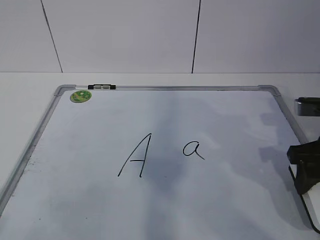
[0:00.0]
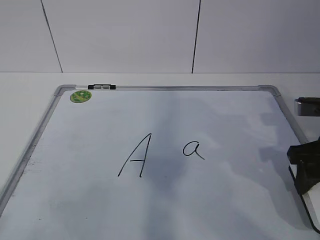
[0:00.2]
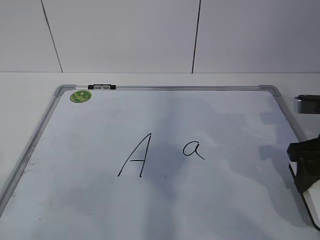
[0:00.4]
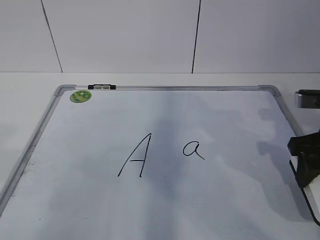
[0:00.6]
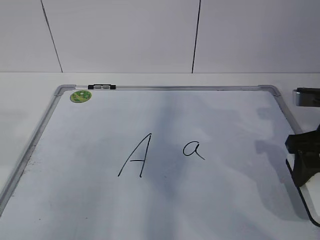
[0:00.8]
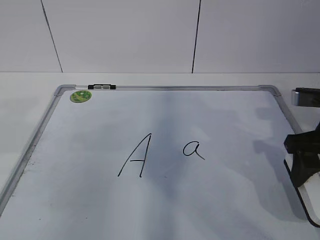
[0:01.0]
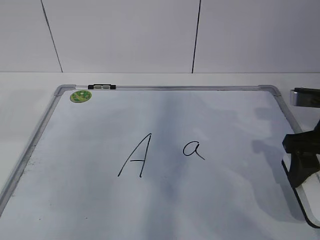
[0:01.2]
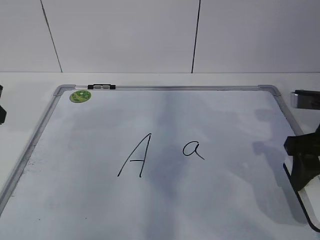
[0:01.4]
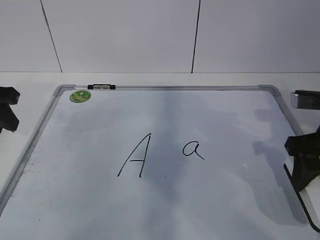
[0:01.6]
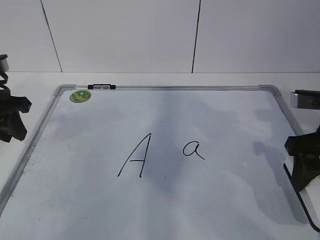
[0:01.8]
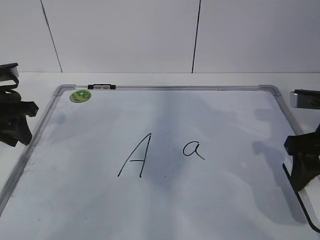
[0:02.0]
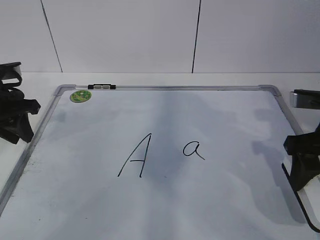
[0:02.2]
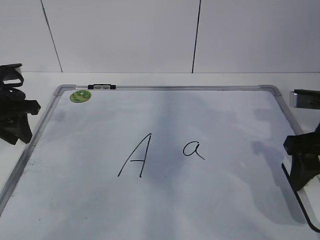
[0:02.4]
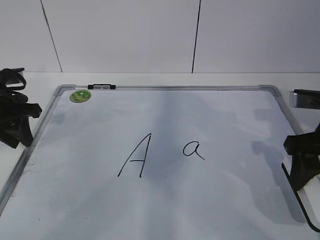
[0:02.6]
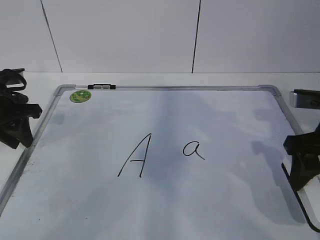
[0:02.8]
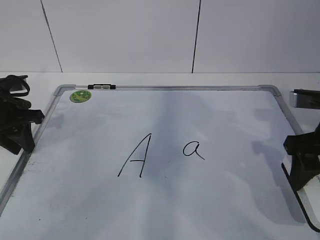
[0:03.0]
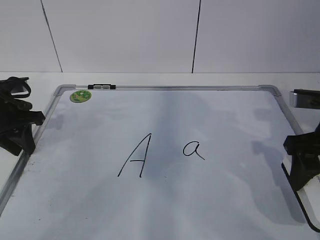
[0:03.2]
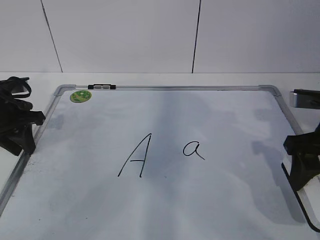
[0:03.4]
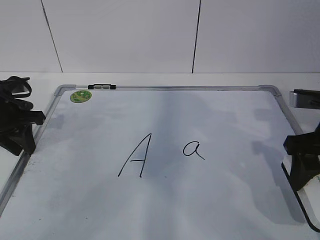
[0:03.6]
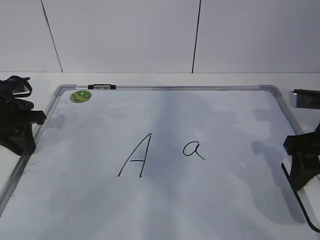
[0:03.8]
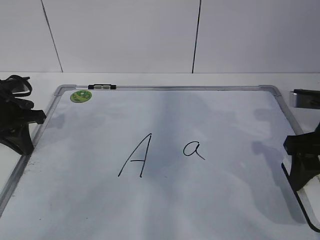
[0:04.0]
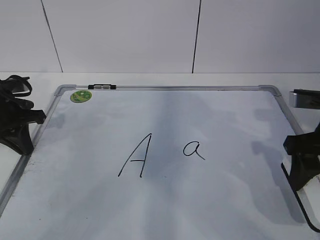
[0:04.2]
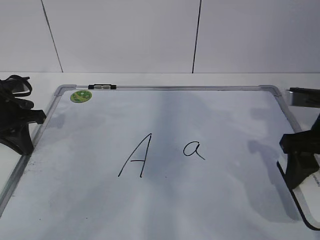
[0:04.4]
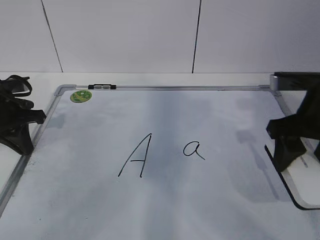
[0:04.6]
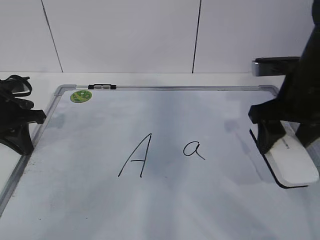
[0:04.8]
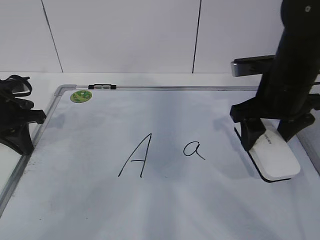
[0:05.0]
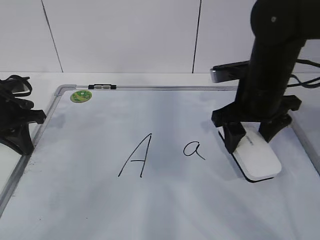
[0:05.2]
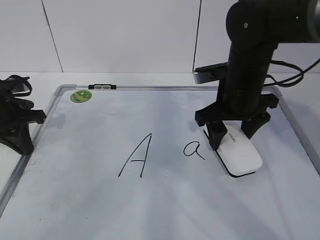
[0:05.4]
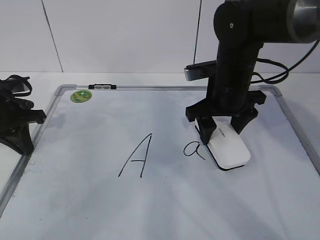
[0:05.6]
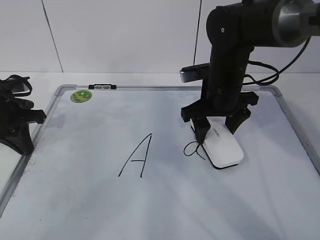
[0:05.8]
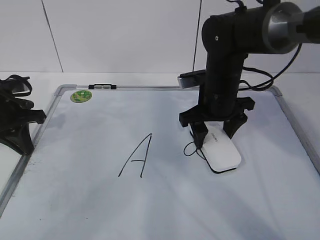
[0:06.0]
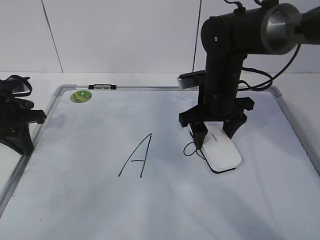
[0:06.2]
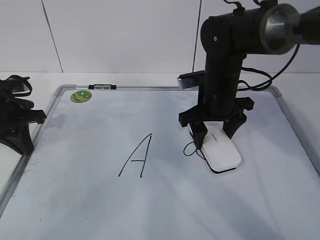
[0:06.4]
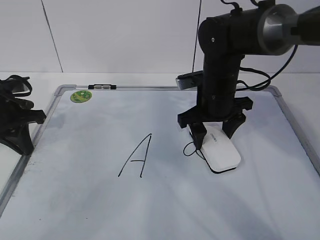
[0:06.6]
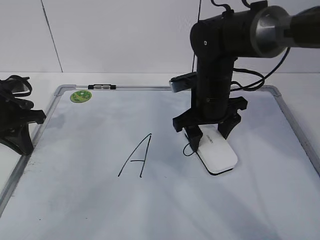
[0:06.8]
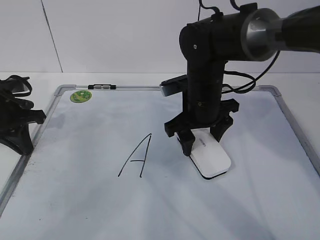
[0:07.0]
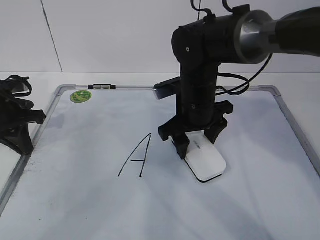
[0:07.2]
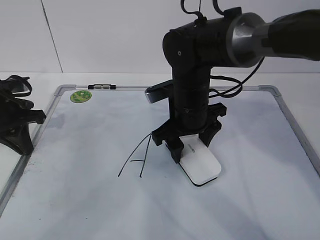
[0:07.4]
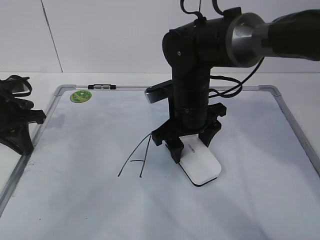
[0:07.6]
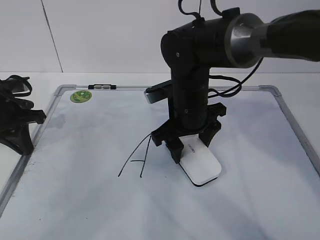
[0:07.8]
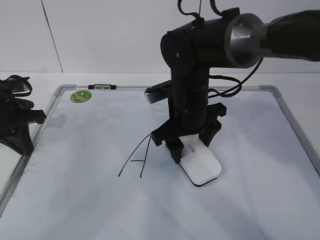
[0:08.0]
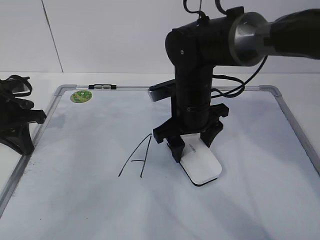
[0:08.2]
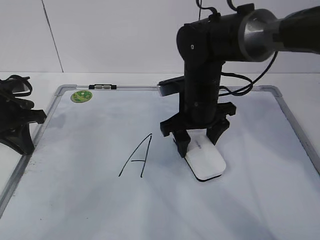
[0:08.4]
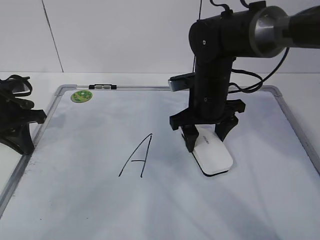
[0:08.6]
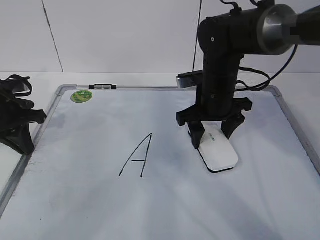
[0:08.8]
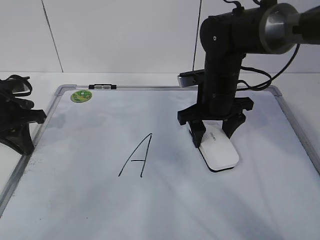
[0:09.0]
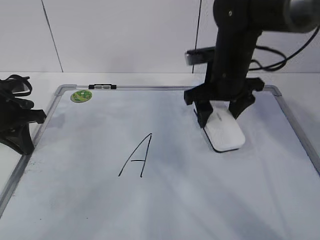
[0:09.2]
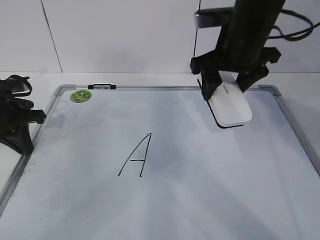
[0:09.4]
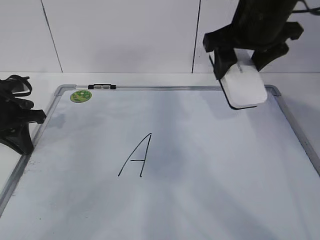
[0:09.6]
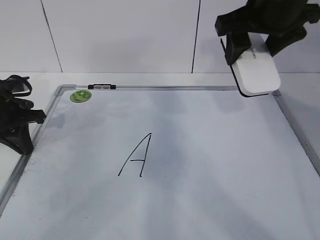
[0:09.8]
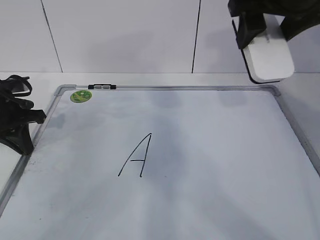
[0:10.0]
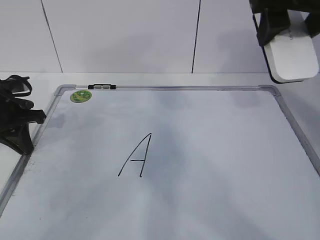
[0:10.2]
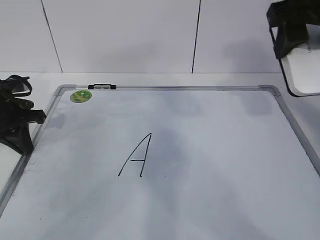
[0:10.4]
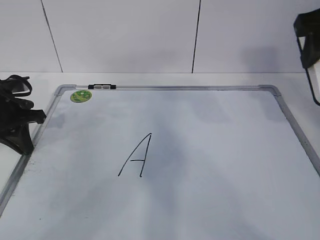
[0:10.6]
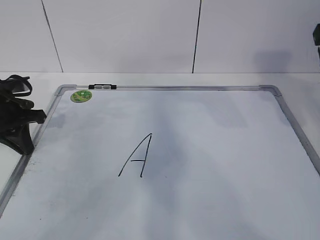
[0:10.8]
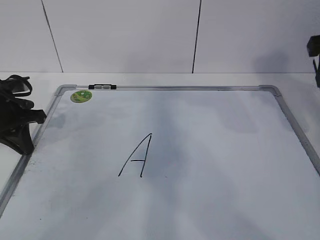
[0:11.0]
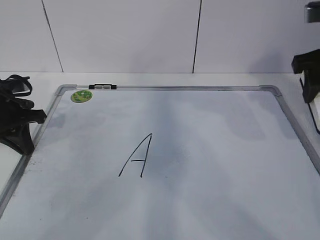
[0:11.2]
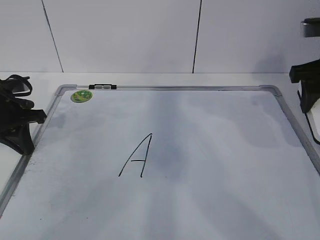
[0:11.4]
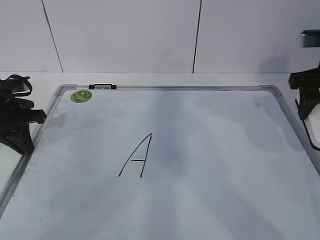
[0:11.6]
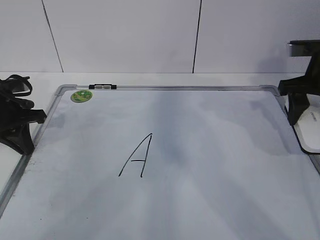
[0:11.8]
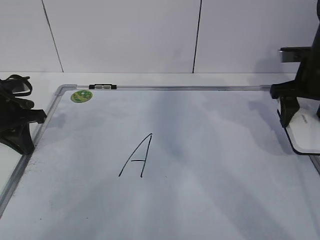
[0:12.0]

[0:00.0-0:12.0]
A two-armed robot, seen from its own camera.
Task of the whole recording: pick up the eraser on the blackboard and erase the letter "a".
Step, 0:01.0 to 0:04.8: Erase the letter a with your right hand.
Step, 0:05.0 to 0:09.0: Put down the eraser with your right hand.
0:00.0 to 0:01.6: The left gripper goes roughly 30 cm forward.
0:01.6 to 0:03.0: The left gripper travels downward and forward by roughly 10 cm.
0:03.0 to 0:04.4: The left gripper closes.
0:04.4 to 0:06.0: The right gripper goes approximately 20 cm to the left and forward.
0:06.0 to 0:07.6: The right gripper shifts some 5 cm to the left.
0:07.6 to 0:09.0: The right gripper goes some 5 cm to the right.
0:09.0 to 0:10.4: The right gripper moves upward, backward and to the right, approximately 25 cm.
0:10.4 to 0:12.0: The right gripper moves downward, forward and to the right, some 20 cm.

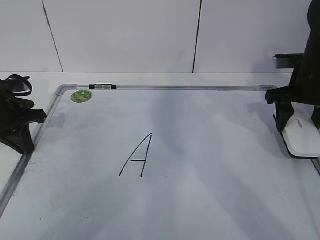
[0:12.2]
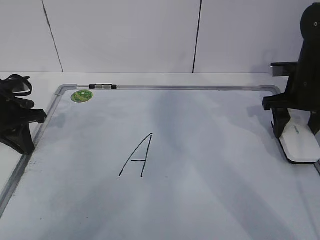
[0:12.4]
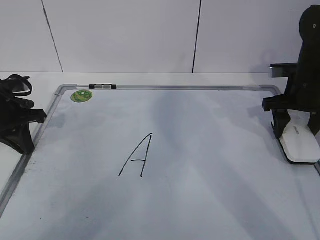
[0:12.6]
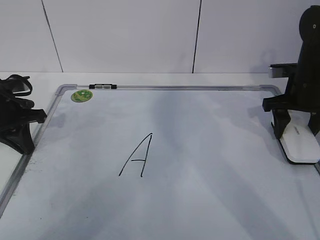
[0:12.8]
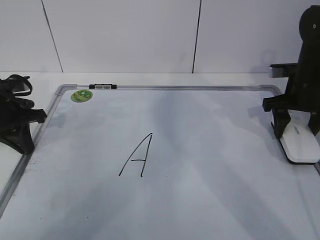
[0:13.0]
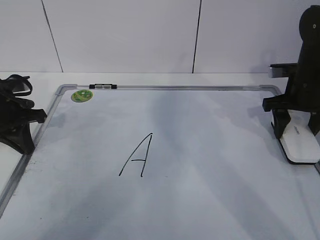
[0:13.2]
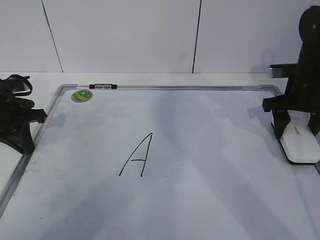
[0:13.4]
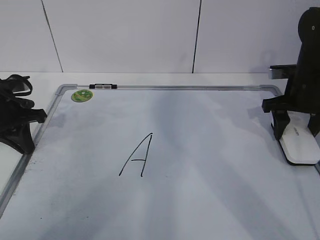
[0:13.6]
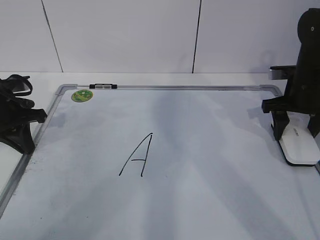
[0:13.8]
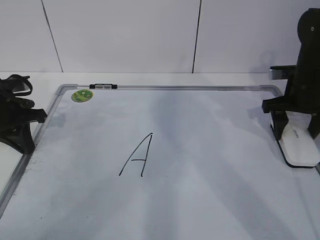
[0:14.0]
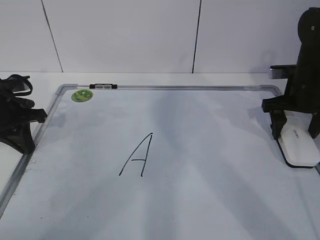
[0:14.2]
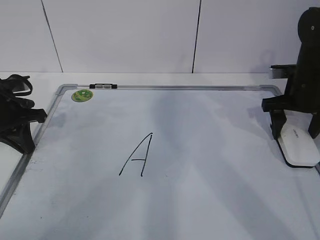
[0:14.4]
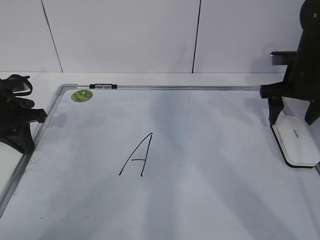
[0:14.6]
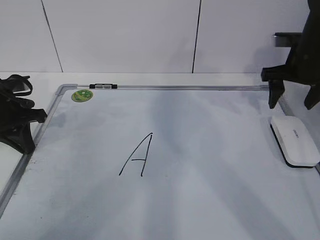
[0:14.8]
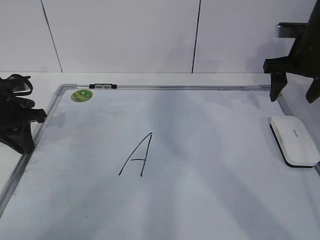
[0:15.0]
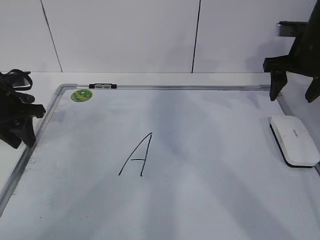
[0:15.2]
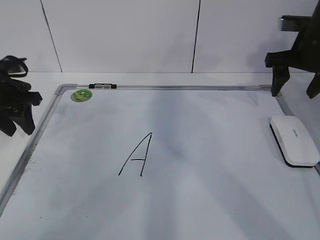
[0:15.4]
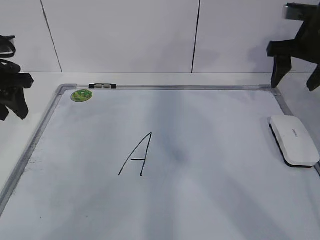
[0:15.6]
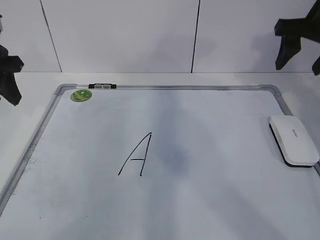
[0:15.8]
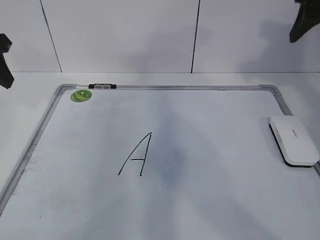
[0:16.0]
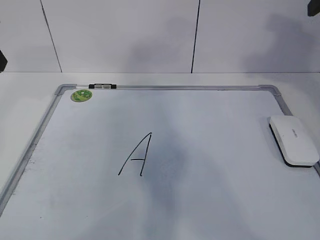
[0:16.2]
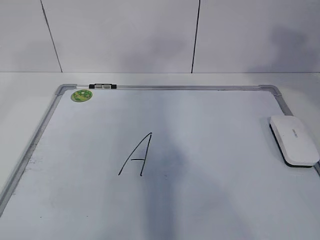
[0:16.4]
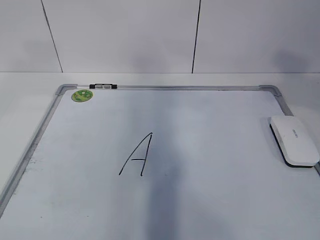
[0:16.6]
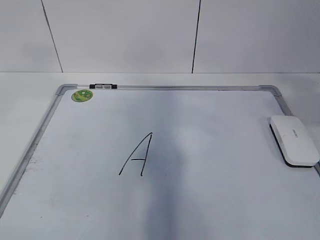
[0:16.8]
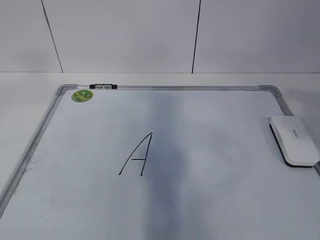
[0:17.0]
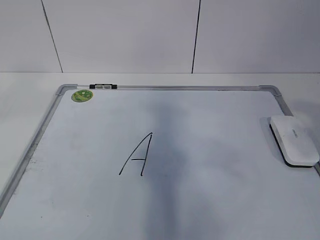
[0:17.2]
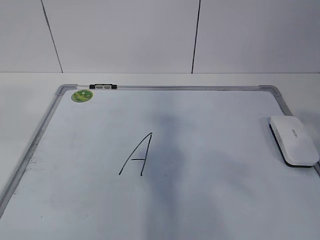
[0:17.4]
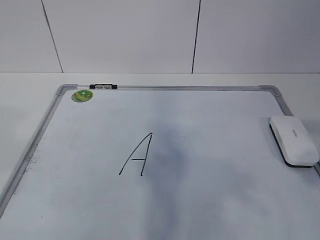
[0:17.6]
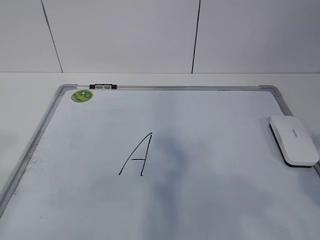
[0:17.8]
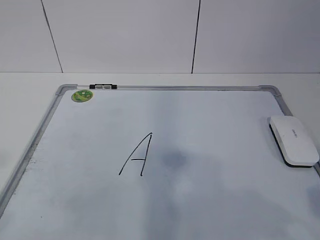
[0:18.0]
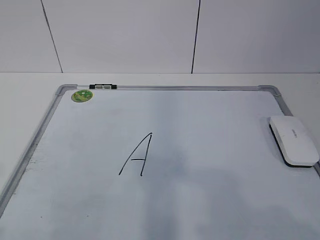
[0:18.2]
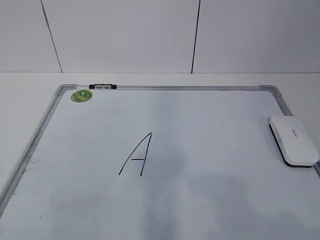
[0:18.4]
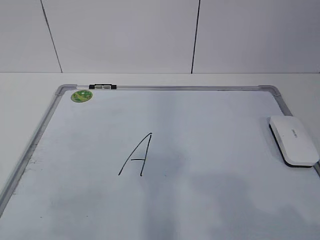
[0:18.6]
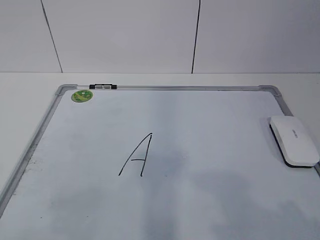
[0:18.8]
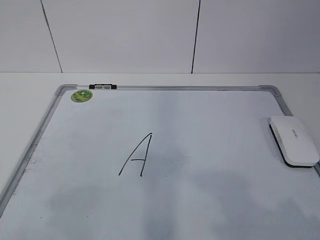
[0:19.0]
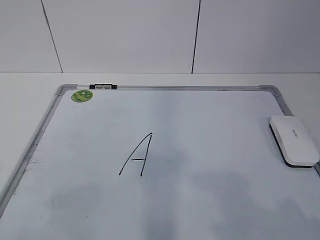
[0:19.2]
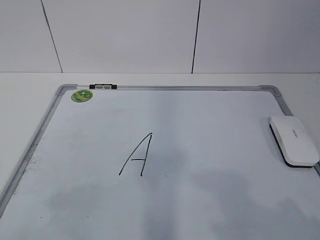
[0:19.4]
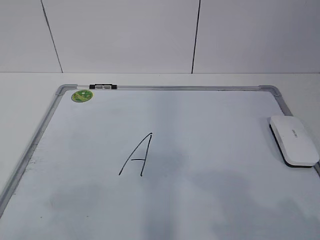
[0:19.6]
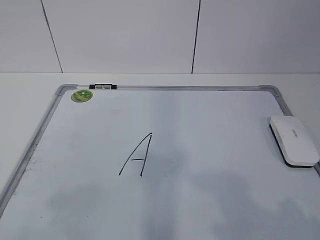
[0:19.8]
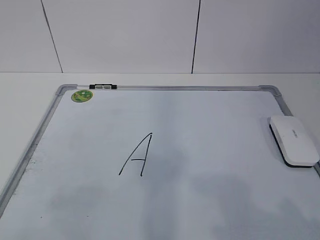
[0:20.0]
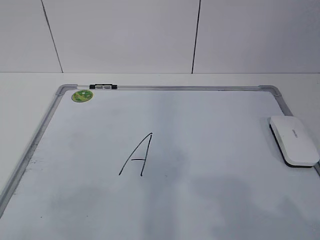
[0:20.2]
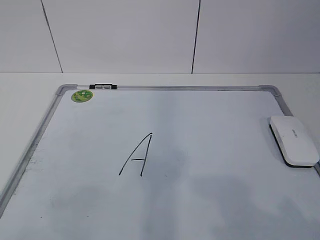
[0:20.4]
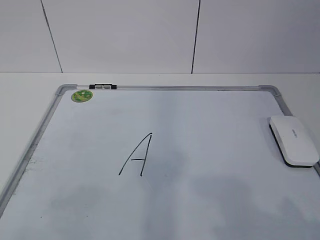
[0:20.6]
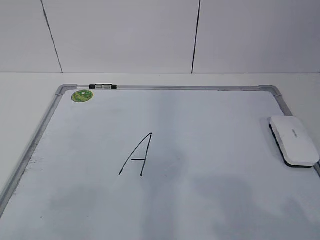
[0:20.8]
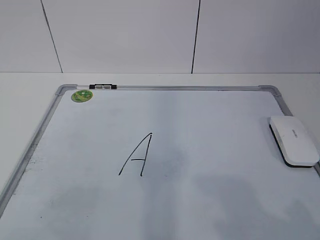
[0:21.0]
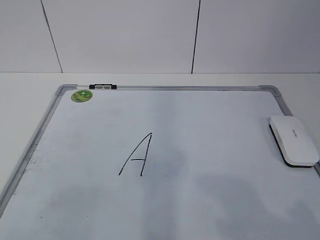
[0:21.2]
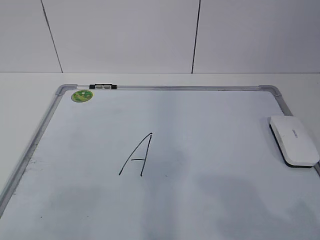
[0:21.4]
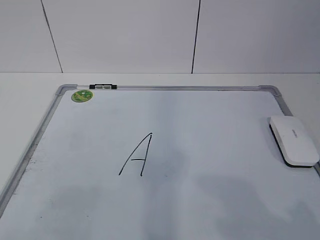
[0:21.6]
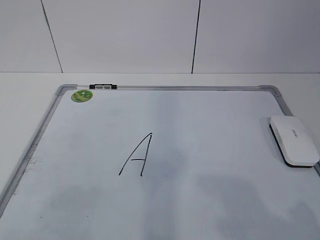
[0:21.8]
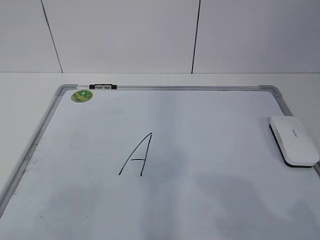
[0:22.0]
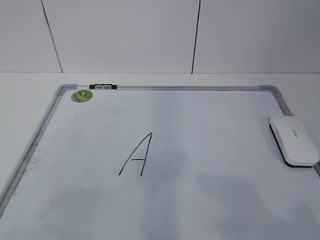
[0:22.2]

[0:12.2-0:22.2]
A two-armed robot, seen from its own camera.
Task of the whole recording: pick up the eraser on the blackboard and erase the letter "a".
0:12.2 to 0:13.6: The grippers move only a little.
0:13.6 to 0:15.0: The right gripper shifts approximately 5 cm upward, and opens.
0:15.0 to 0:16.4: Both grippers travel together upward and backward, approximately 25 cm. The right gripper closes up. The left gripper opens its fingers.
0:16.4 to 0:18.0: The right gripper shifts some 25 cm backward and downward.
